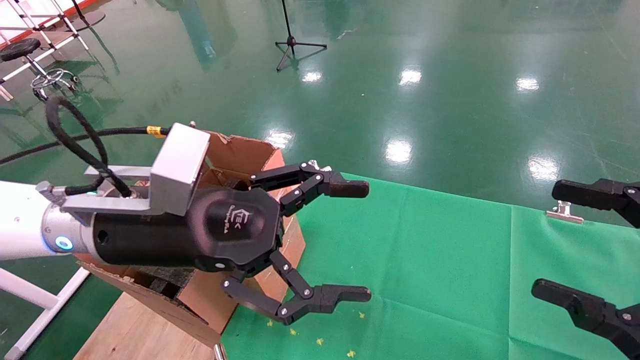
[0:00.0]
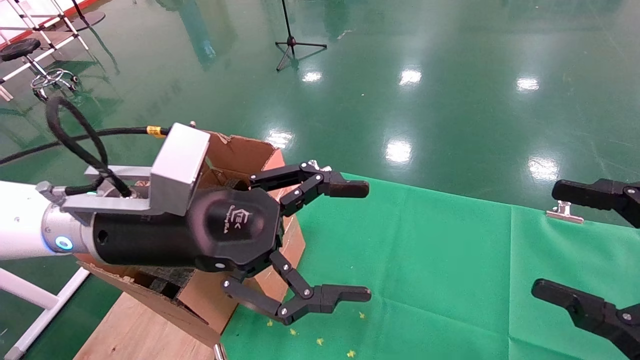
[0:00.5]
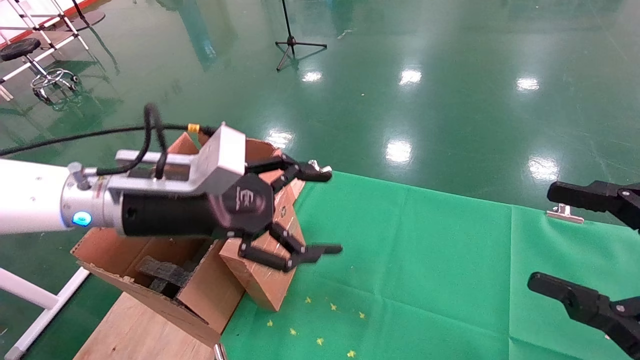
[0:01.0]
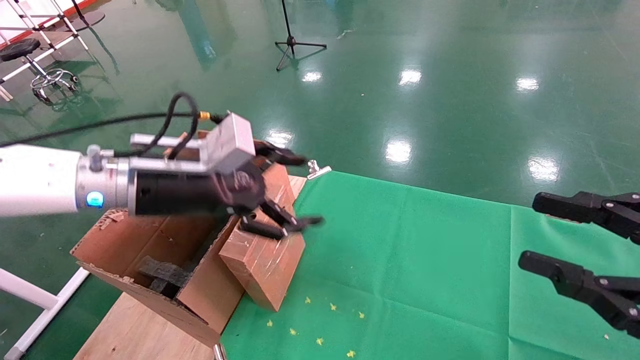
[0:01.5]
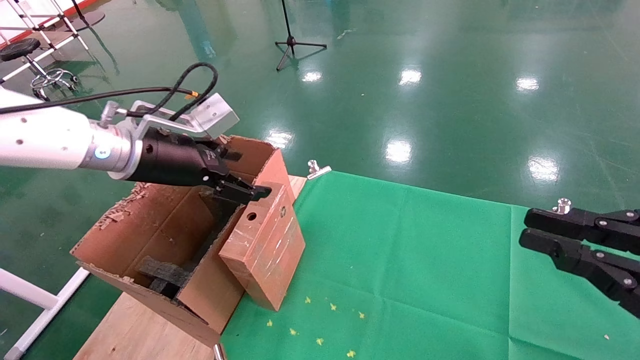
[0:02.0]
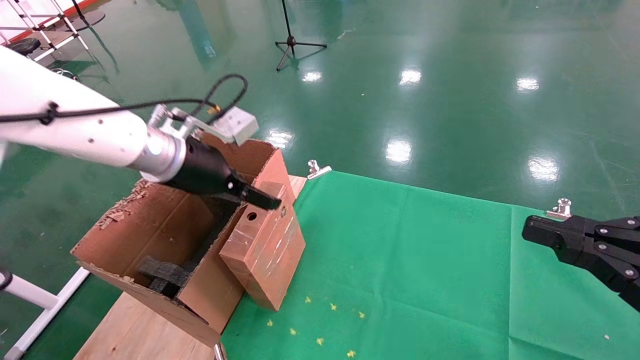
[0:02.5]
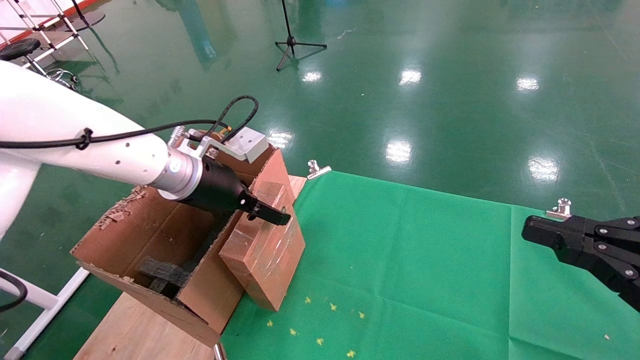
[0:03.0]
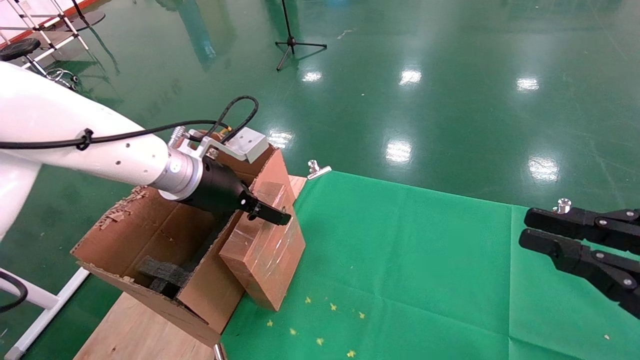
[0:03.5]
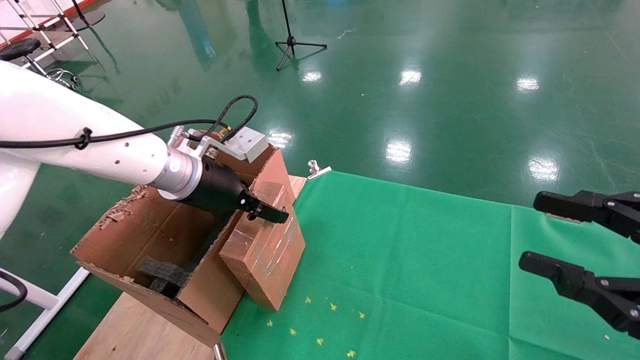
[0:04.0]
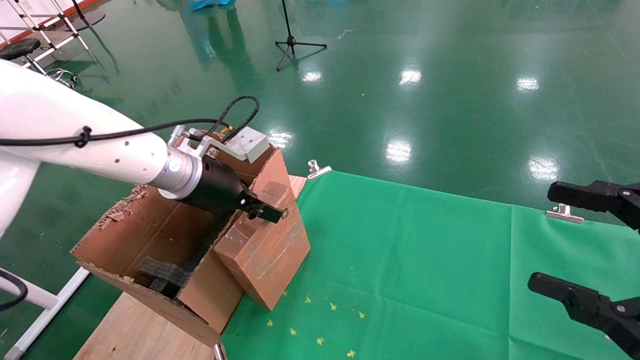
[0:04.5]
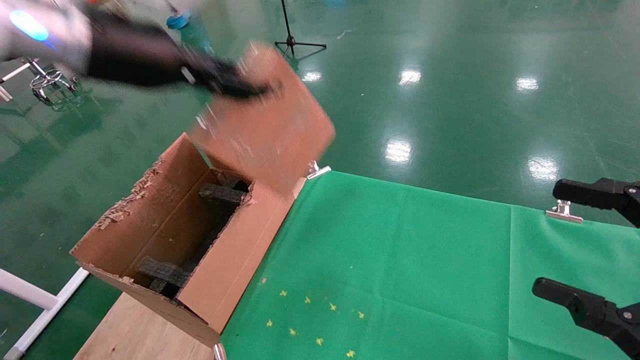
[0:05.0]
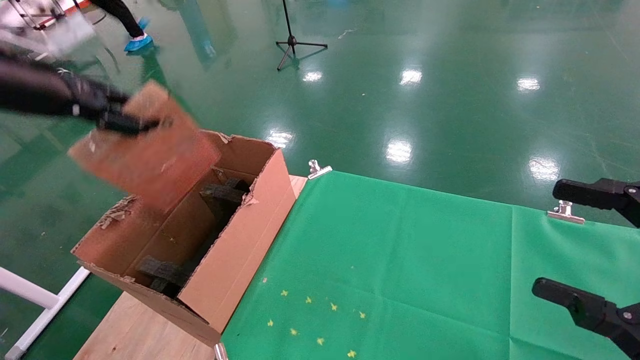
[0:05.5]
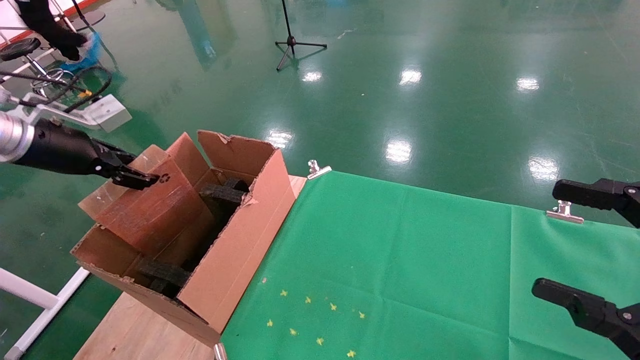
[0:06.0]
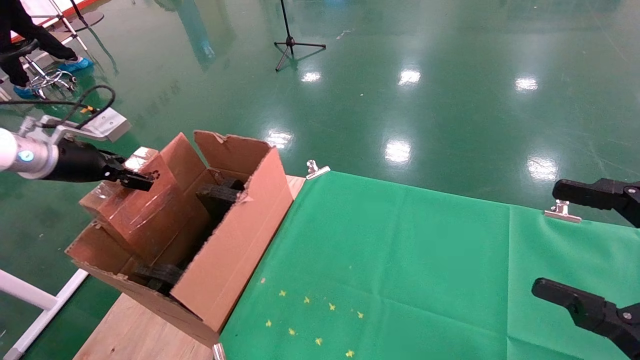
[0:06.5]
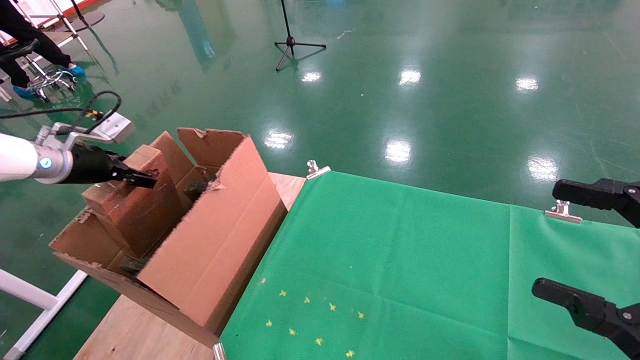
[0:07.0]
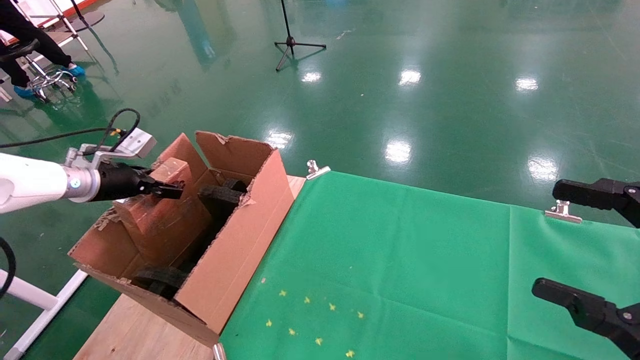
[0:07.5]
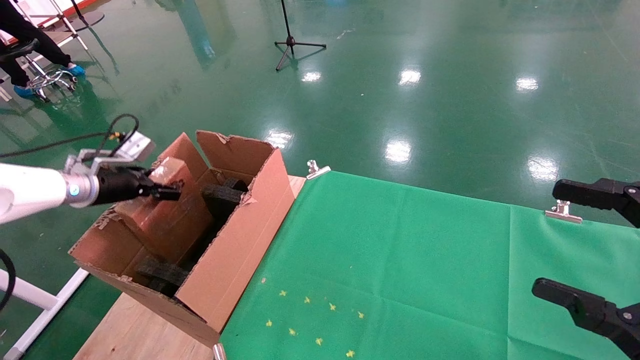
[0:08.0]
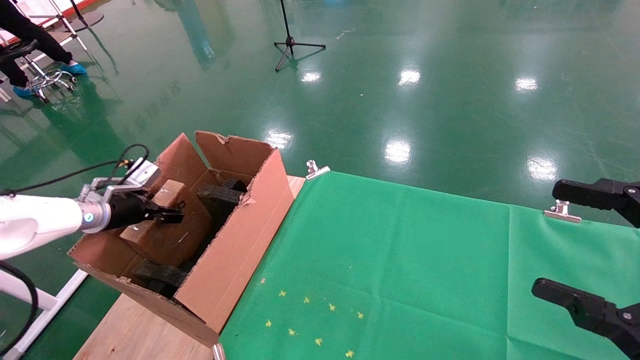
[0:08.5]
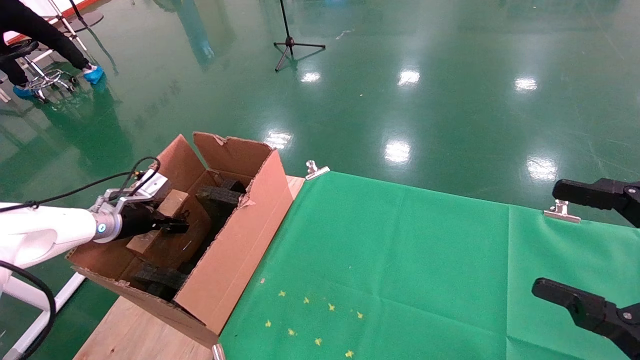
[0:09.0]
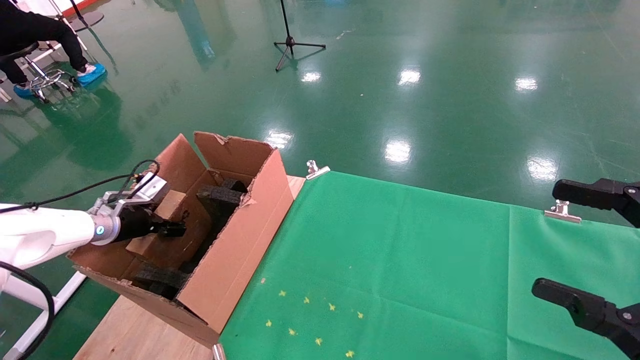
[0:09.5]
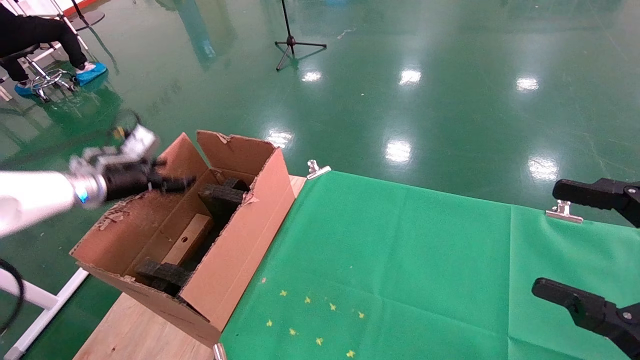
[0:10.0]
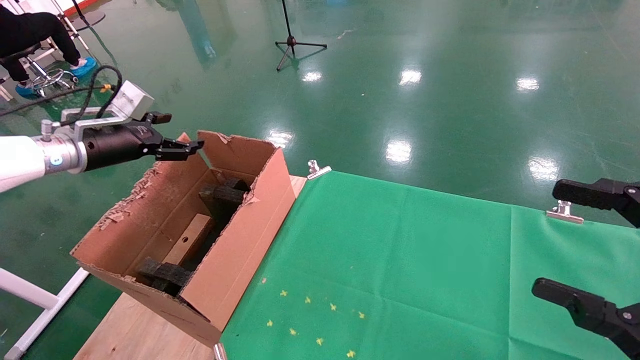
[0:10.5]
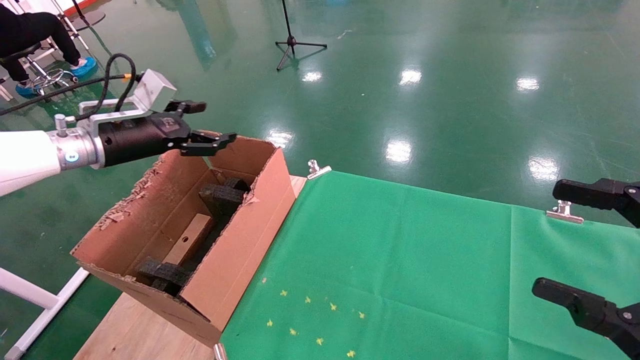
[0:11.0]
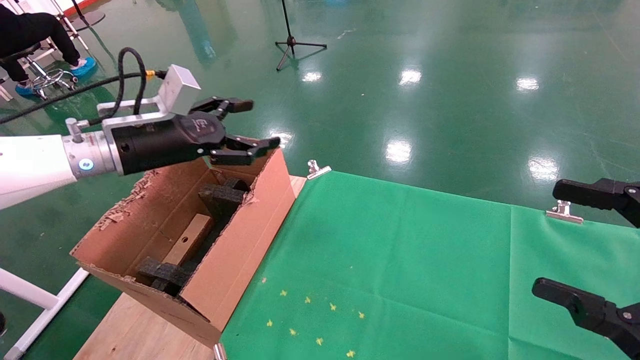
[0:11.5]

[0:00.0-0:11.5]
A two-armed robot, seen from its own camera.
Task of the whole recording: using a robotic arm to pick up a cardboard box and palace it the carton.
Step, 0:01.0 to 0:04.5: Pick up the mouse and the power cord paper box.
Step, 0:05.0 to 0:10.0: Place the mouse and the power cord paper box into the container.
0:00.0 to 0:02.0: The right gripper closes up, while the left gripper shifts approximately 15 cm forward and to the left.
0:02.0 to 0:04.0: The left gripper ends up some 5 cm from where it was.
0:04.0 to 0:06.0: The right gripper opens its fingers. The left gripper travels to the left by roughly 25 cm, and closes its fingers.
0:06.0 to 0:07.5: The left gripper goes about 10 cm downward and forward.
0:07.5 to 0:09.5: The left gripper is displaced downward by about 10 cm.
0:09.5 to 0:11.5: The left gripper heads upward and to the right, covering some 25 cm, and opens up.

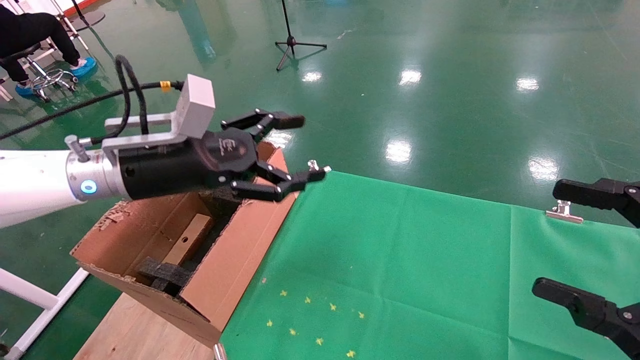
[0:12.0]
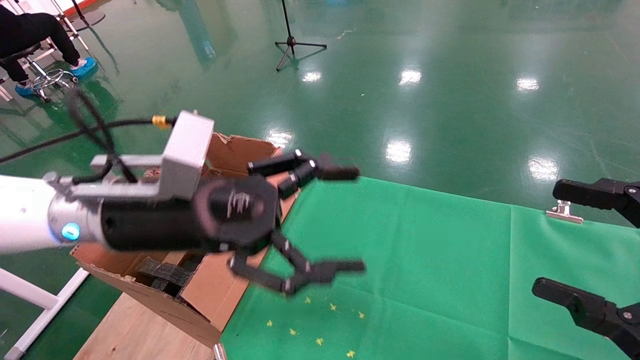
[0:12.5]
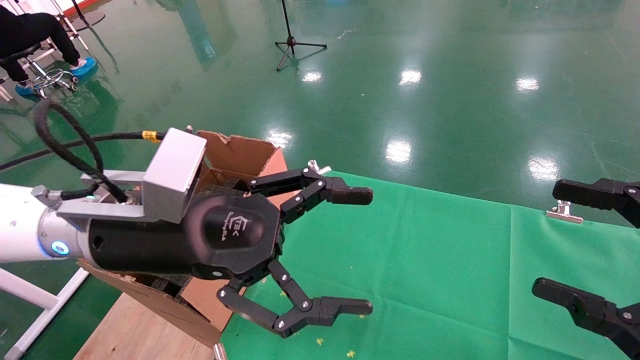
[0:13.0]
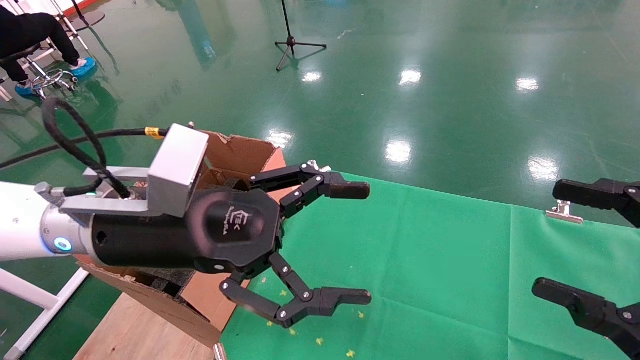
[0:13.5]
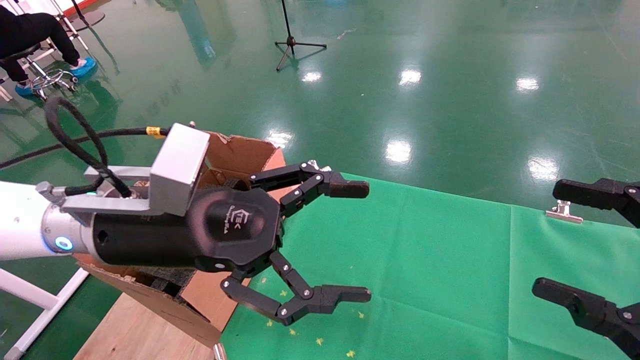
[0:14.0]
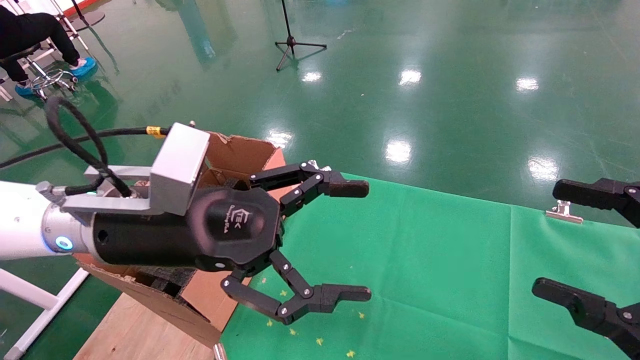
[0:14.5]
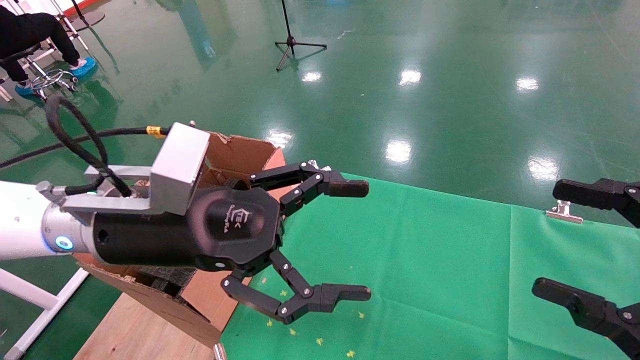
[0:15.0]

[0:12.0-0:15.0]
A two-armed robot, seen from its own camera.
Task of the whole recording: using a robotic arm to pick up a cardboard box and palace it the carton.
0:12.0 to 0:13.5: The left gripper is displaced backward and to the right by roughly 10 cm.
0:13.5 to 0:15.0: Both grippers stay about where they are.

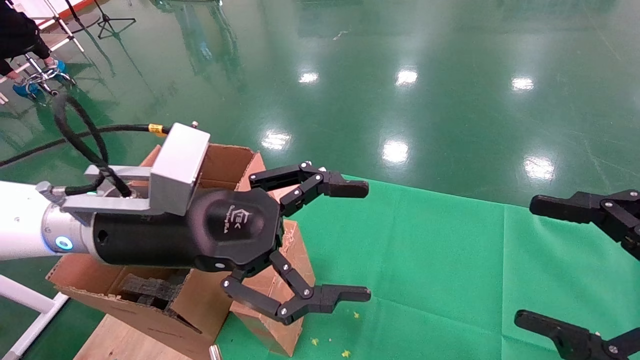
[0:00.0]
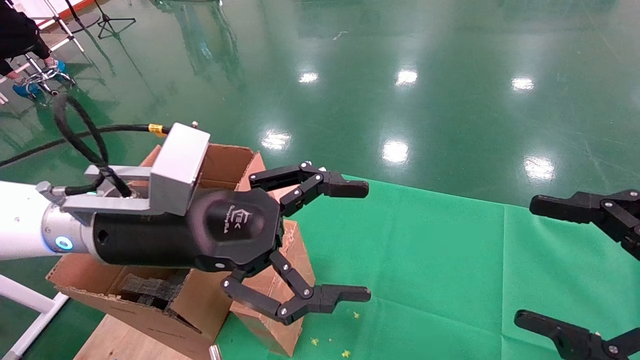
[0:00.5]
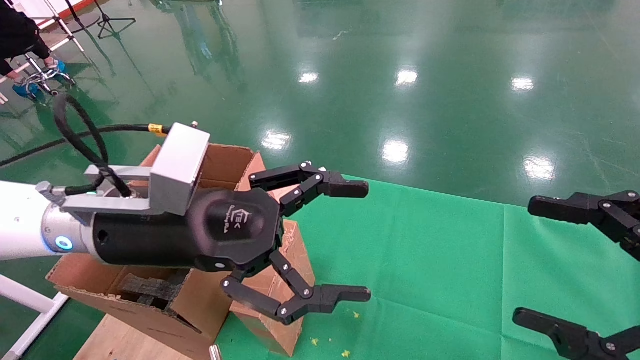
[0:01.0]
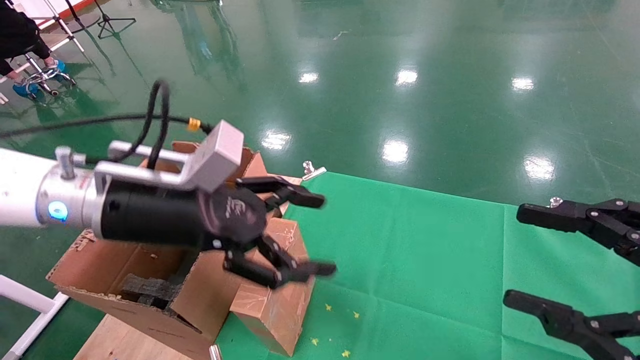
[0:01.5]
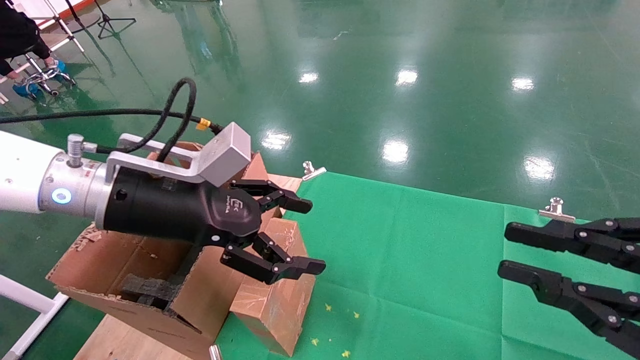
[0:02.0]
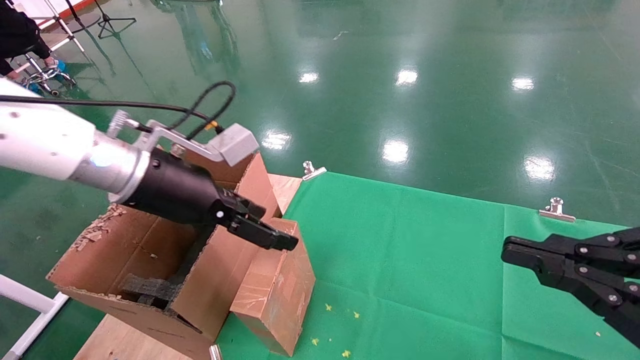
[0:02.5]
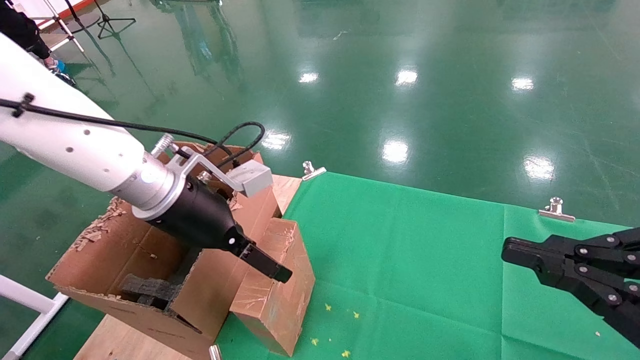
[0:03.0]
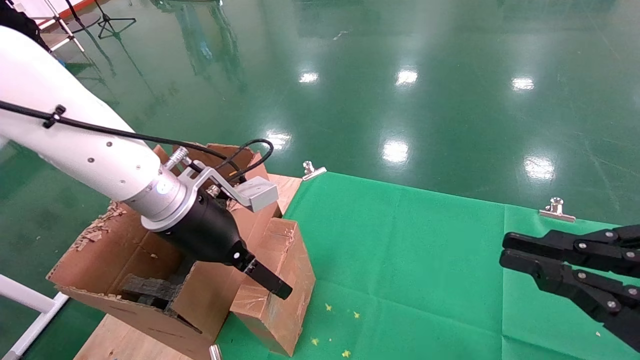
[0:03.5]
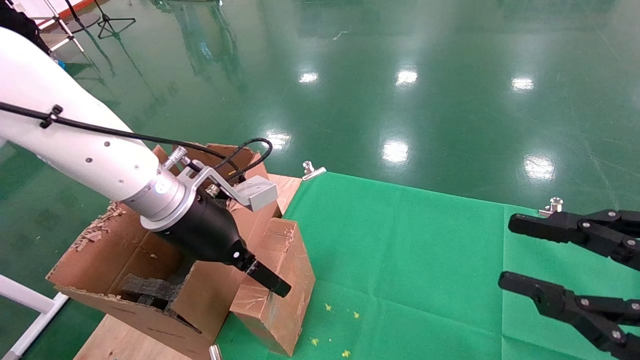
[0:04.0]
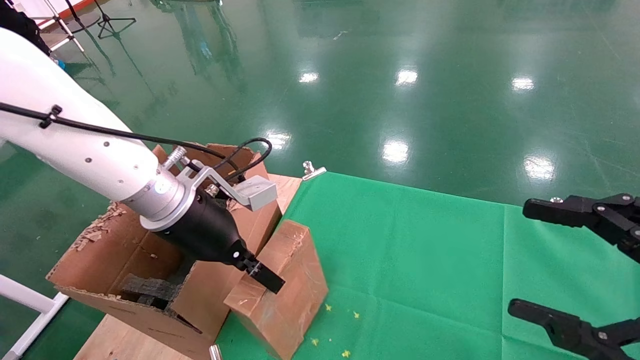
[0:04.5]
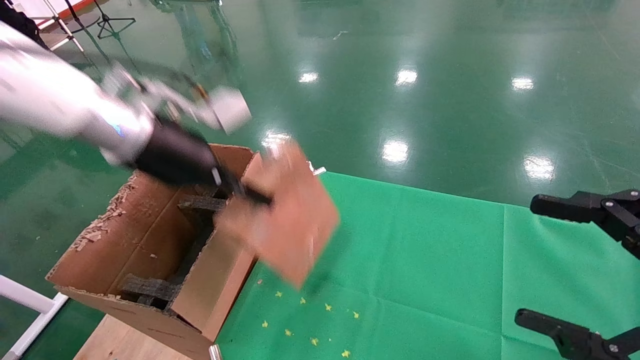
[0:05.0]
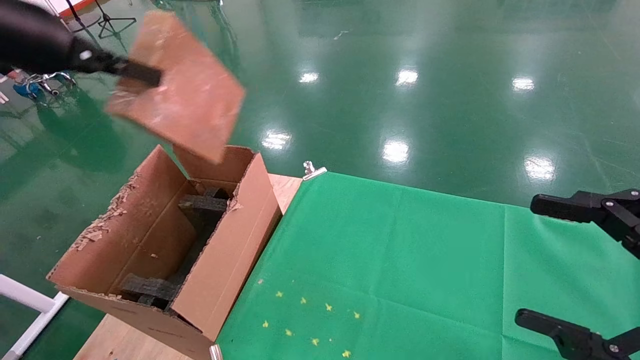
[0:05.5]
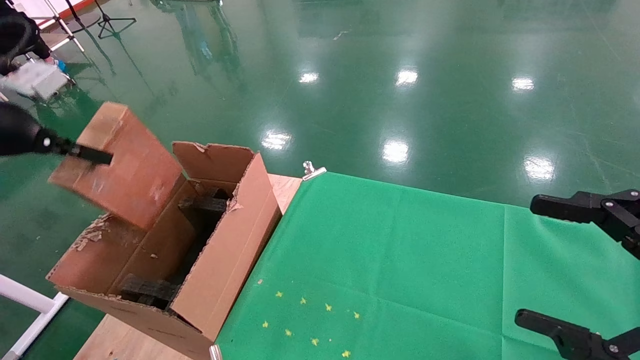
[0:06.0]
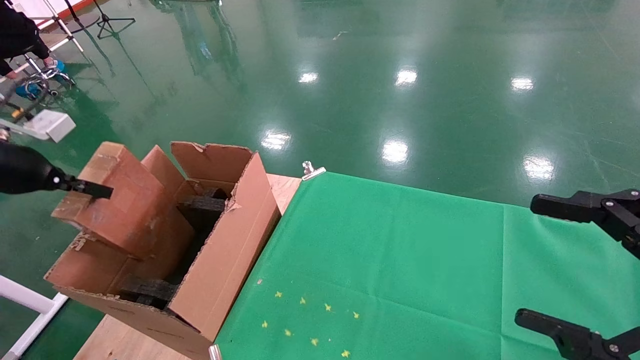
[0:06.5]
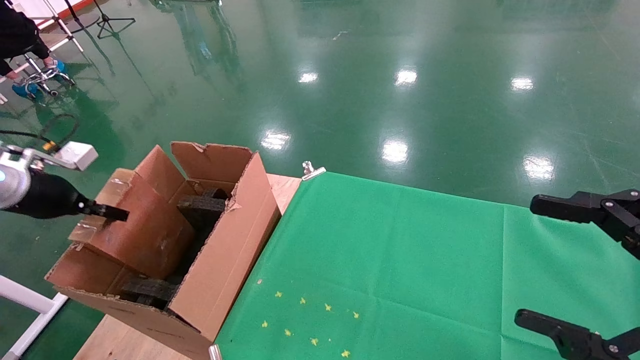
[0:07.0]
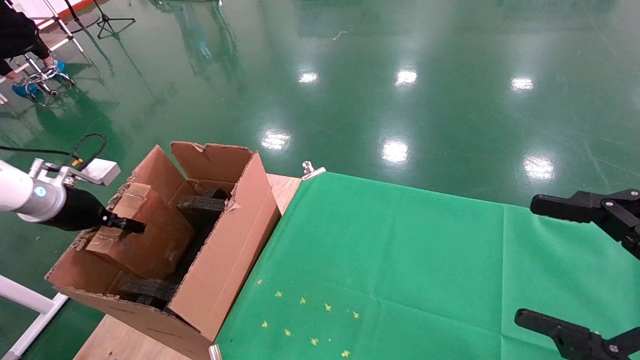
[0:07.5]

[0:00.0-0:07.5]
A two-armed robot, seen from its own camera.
Task of the whole recording: using a robotic arm to pick up a cardboard box and palace it the carton.
Step, 0:01.5 to 0:04.5: Pick up the mouse and the power cord paper box.
0:00.0 to 0:02.0: The right gripper closes up; the left gripper changes place by some 5 cm.
0:02.0 to 0:04.0: The left gripper moves about 5 cm.
0:04.0 to 0:05.5: The right gripper opens up. Meanwhile the left gripper moves upward and to the left, about 25 cm, and closes up.
0:05.5 to 0:07.5: The left gripper is displaced downward and to the left by approximately 25 cm.
